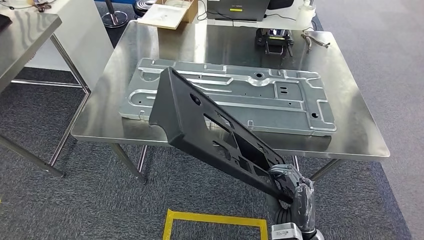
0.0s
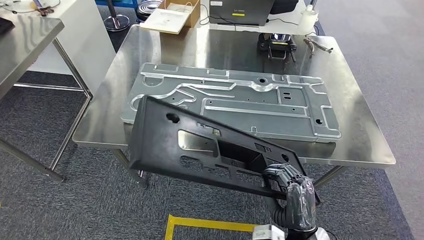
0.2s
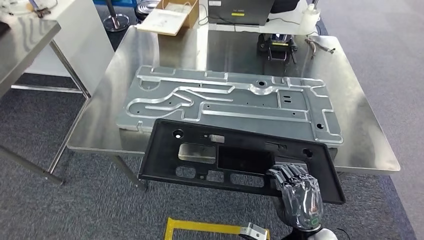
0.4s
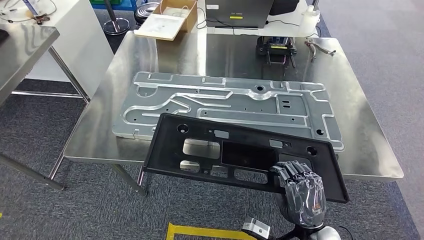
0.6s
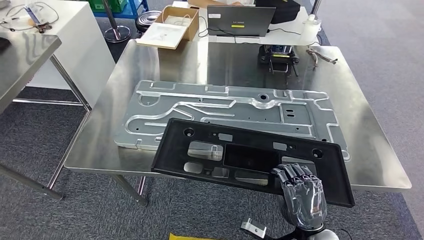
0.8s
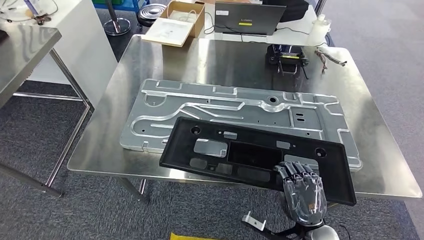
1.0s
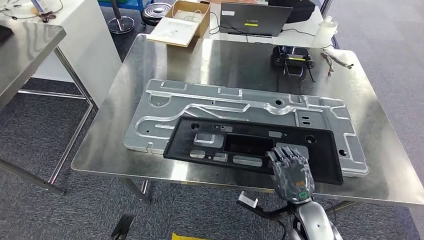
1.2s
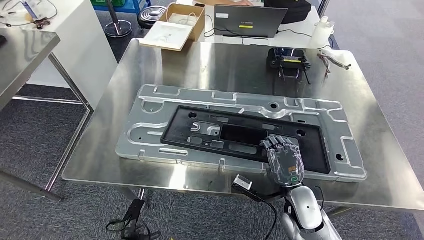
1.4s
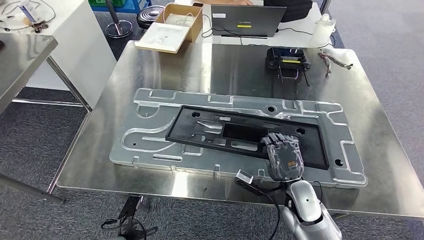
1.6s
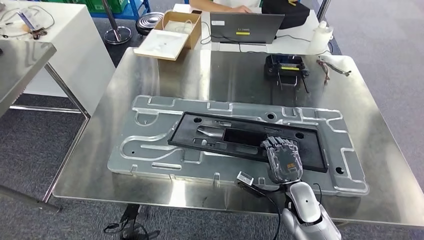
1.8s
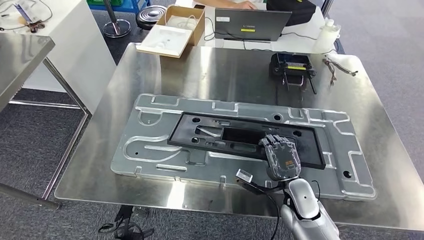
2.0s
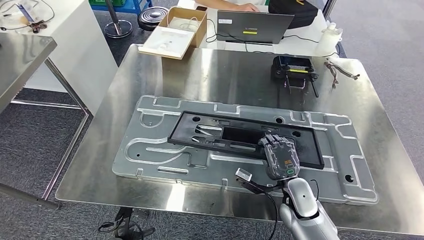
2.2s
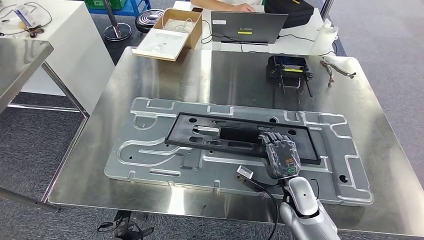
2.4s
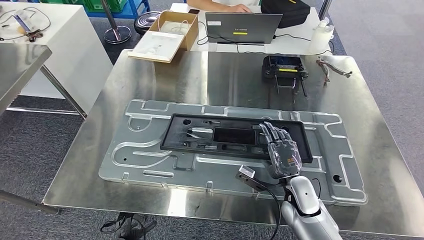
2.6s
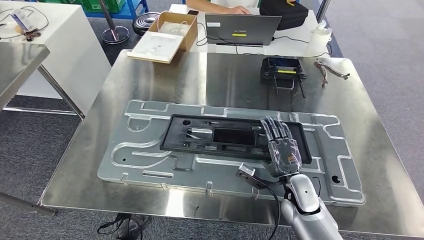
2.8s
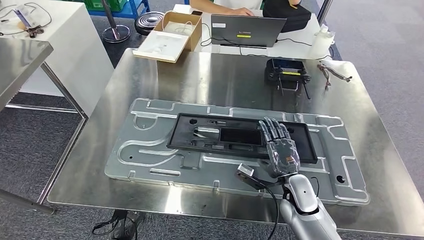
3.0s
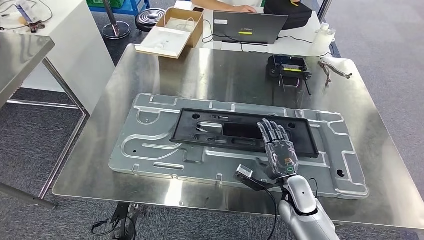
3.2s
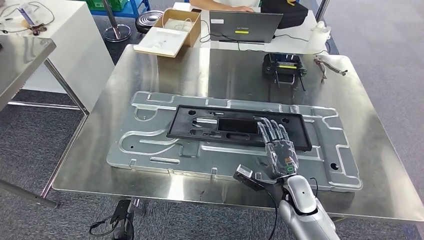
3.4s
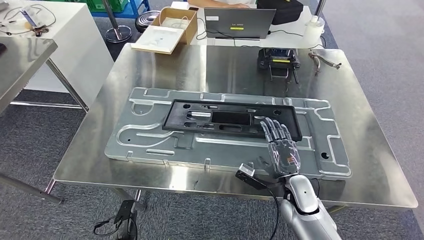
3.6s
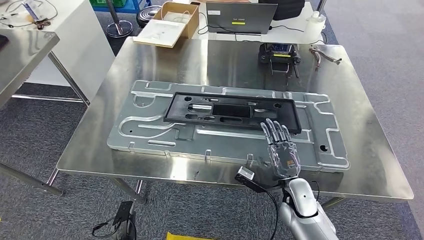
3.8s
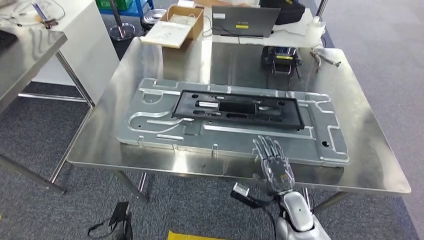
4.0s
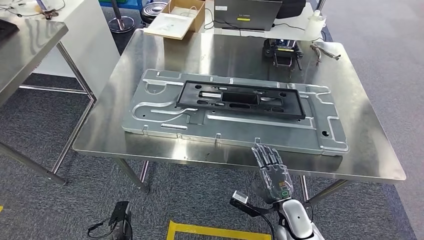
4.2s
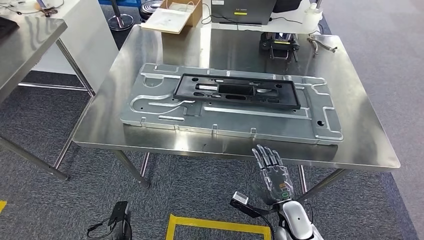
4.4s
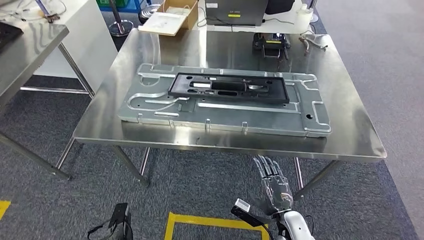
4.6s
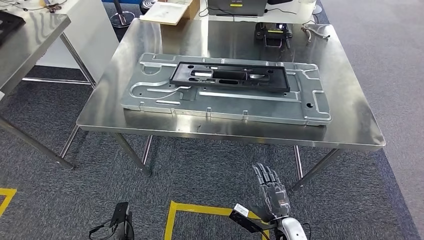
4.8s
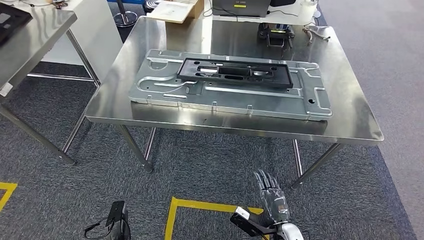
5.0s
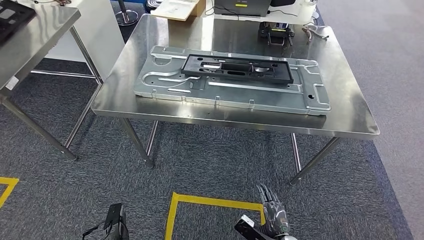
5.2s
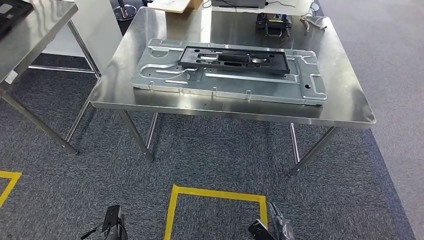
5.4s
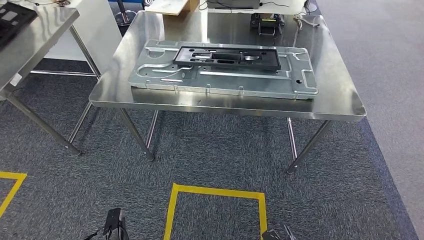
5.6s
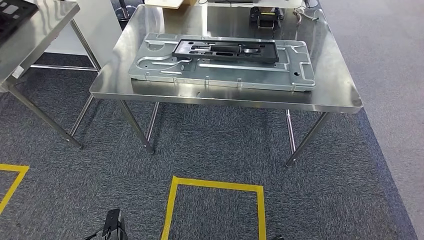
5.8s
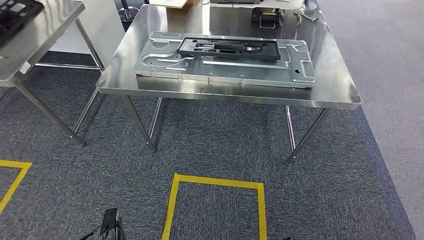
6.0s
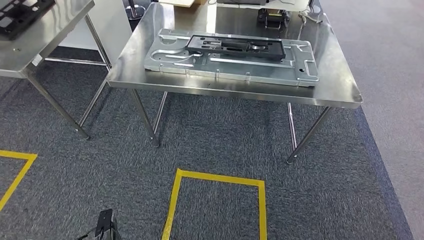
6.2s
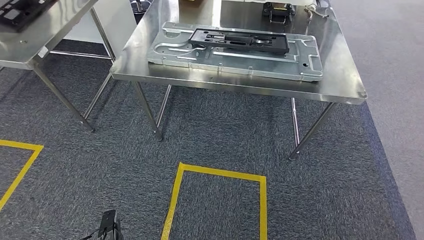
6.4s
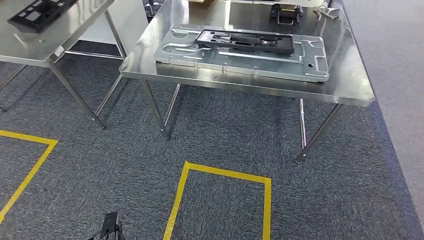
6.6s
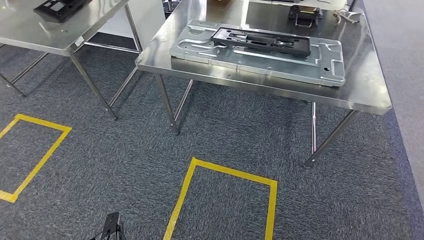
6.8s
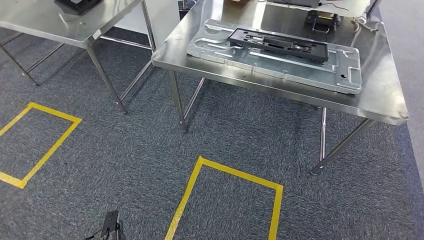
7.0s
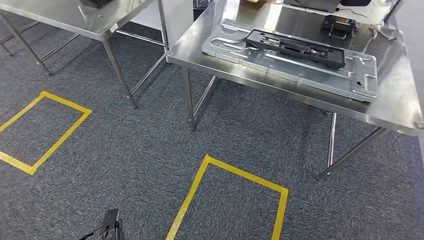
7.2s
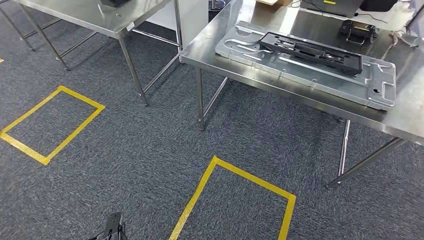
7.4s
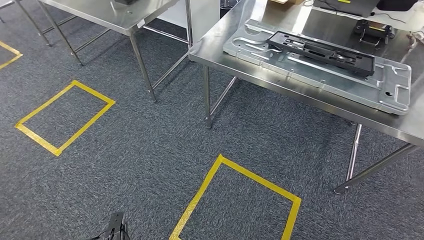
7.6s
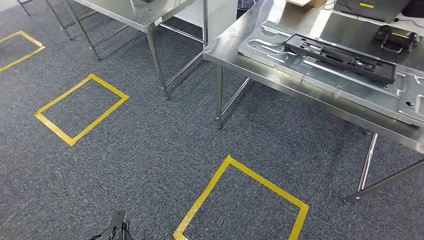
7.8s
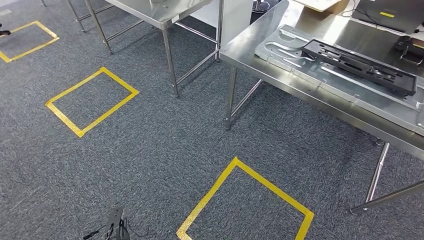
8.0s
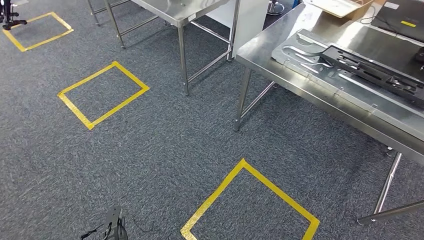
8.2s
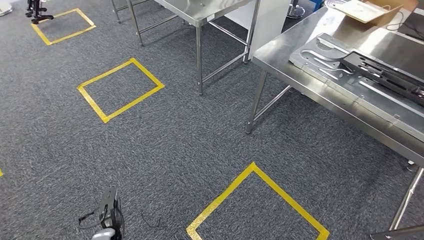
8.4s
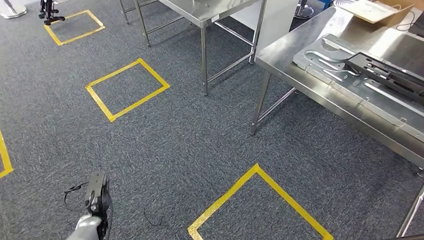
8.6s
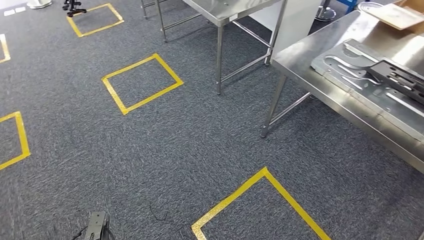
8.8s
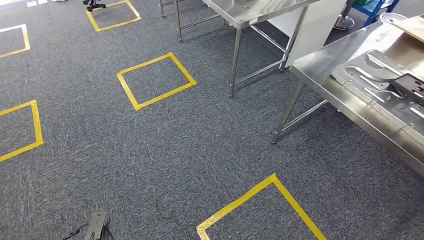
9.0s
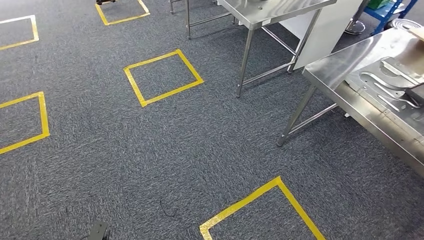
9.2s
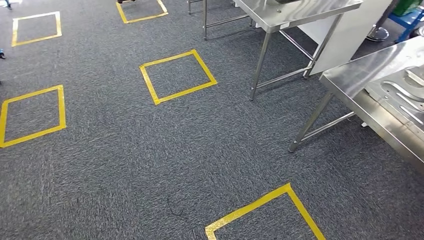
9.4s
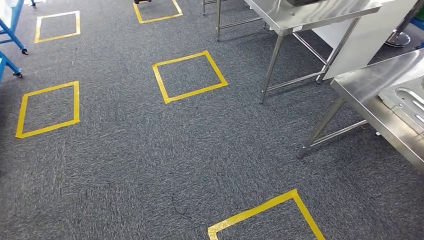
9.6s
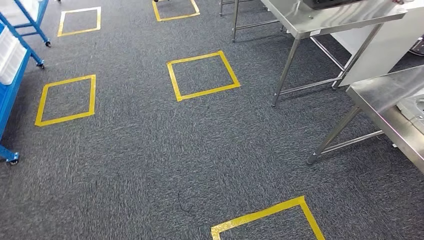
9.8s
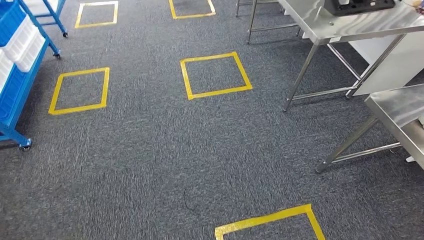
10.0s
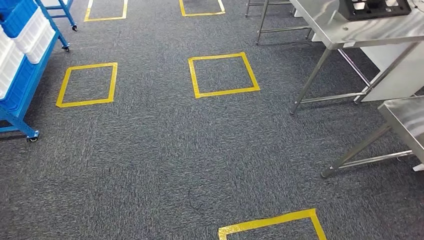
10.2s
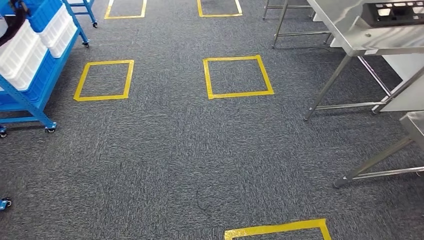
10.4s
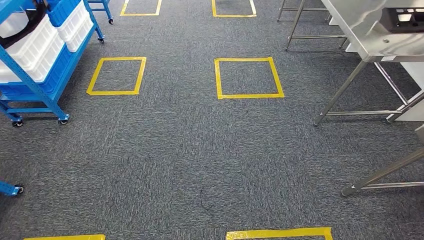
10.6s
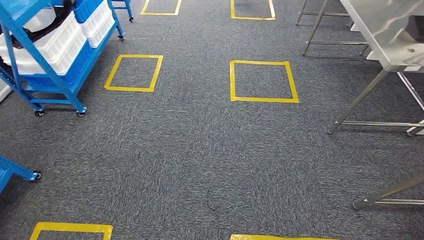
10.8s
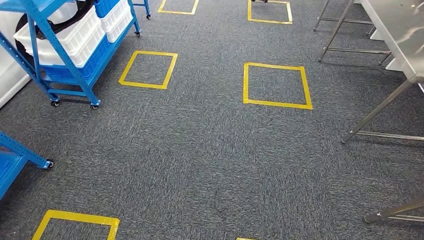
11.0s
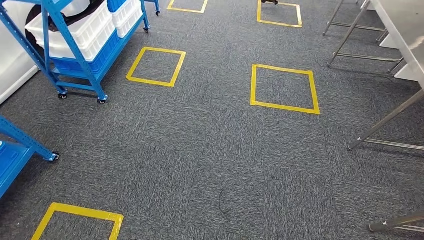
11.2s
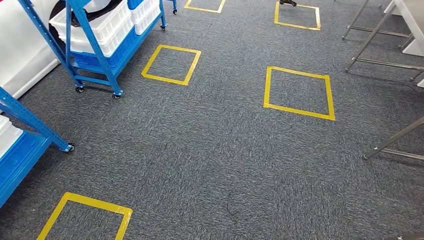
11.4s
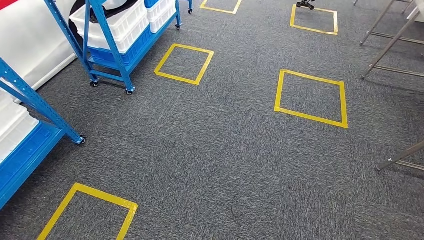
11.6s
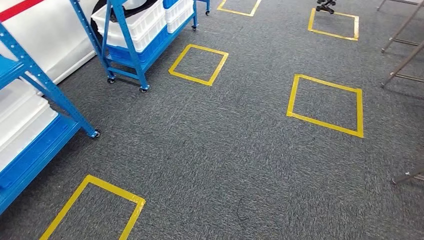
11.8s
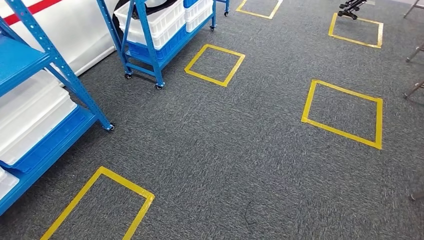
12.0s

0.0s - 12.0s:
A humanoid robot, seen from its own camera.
Step, 0.0s - 4.8s: Insert the large material into the corresponding slot on the workbench.

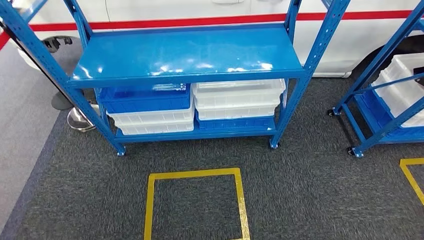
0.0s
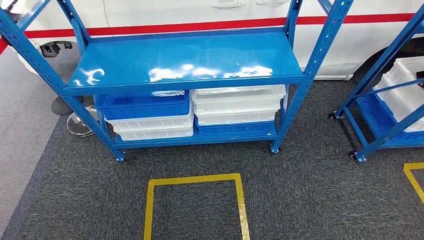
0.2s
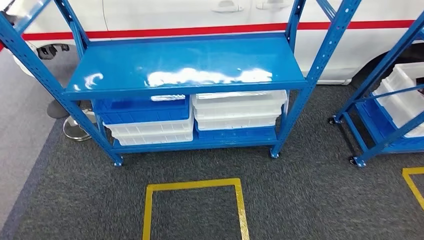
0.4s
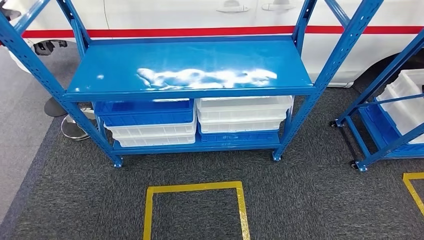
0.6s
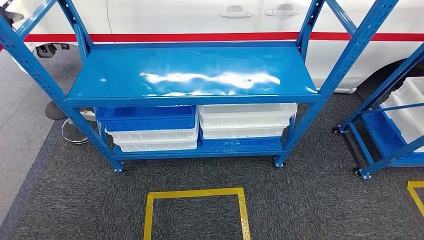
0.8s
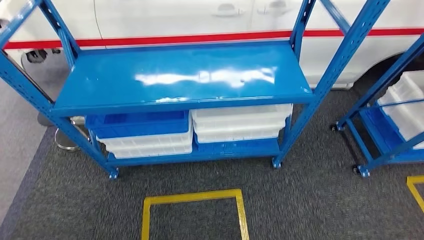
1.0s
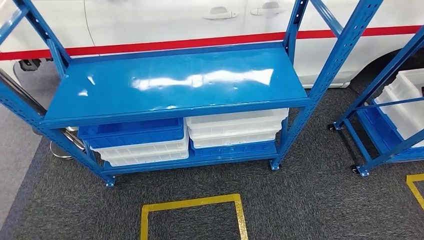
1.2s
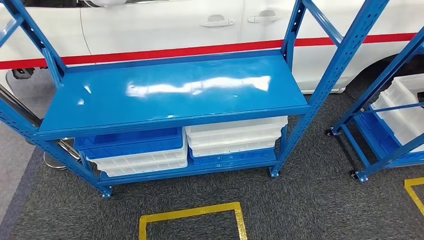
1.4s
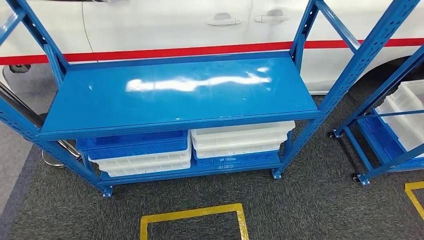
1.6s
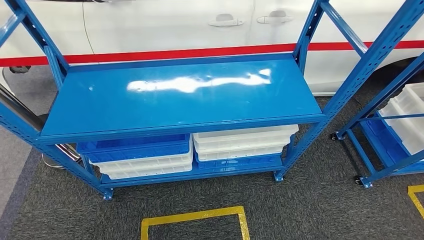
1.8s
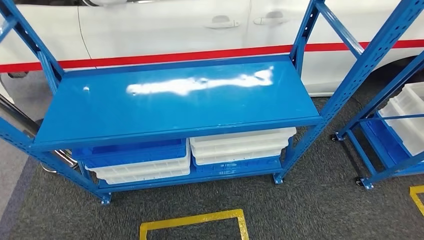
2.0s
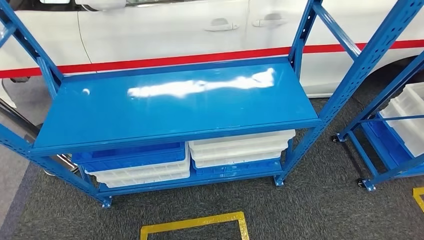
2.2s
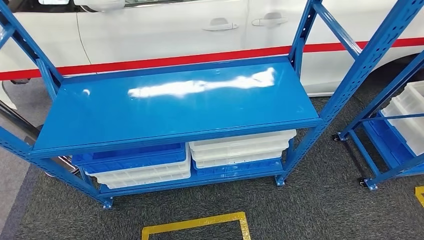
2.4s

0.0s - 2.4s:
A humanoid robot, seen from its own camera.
Step, 0.0s - 2.2s: Move to the initial position of the shelf.
